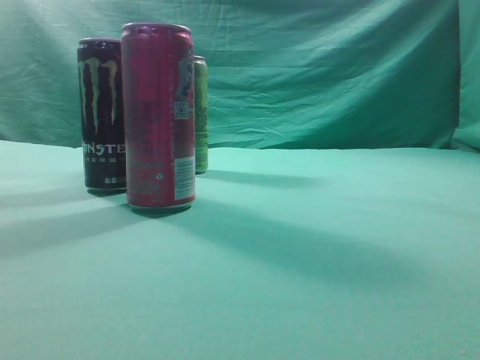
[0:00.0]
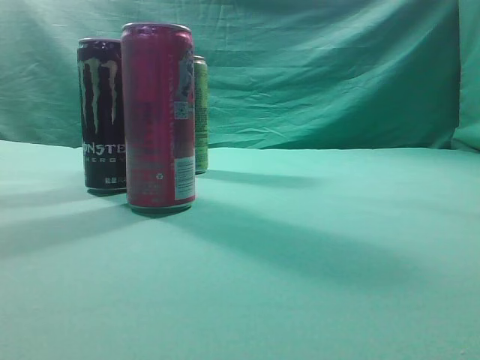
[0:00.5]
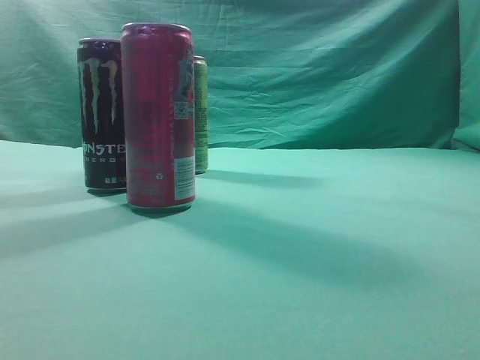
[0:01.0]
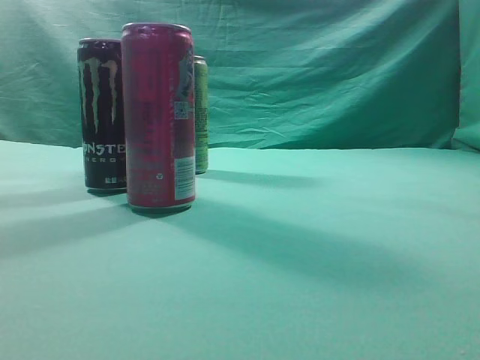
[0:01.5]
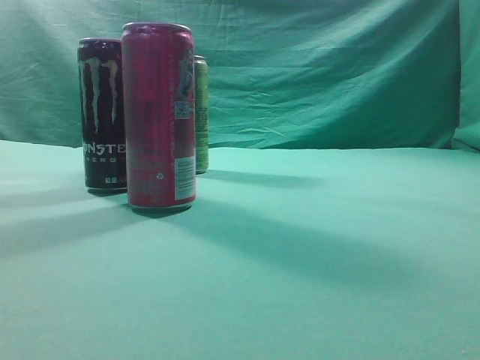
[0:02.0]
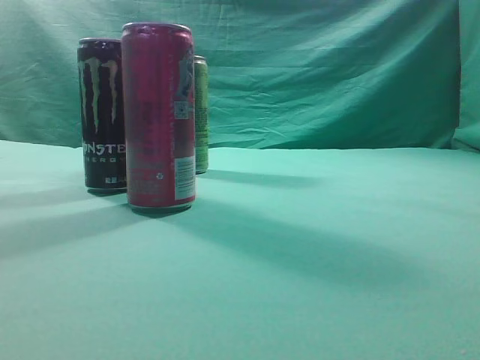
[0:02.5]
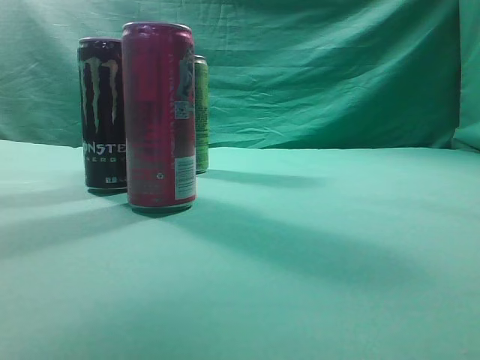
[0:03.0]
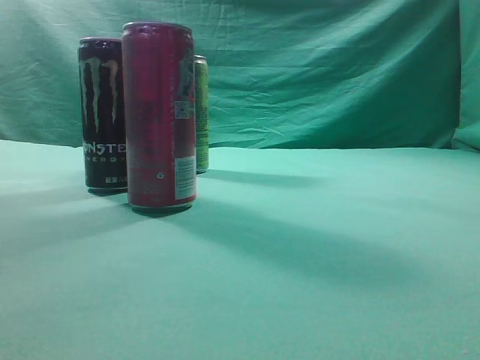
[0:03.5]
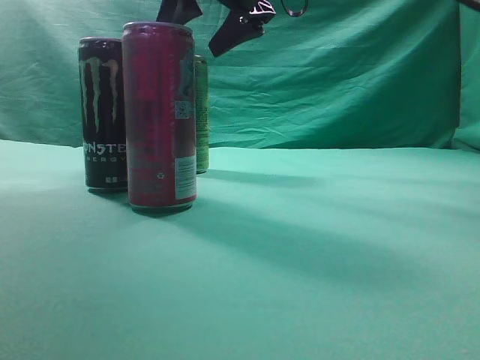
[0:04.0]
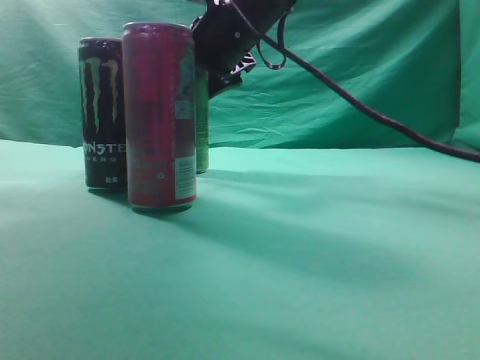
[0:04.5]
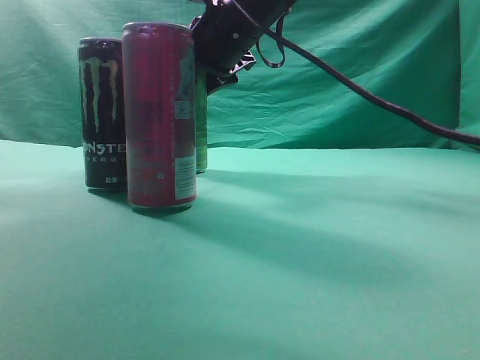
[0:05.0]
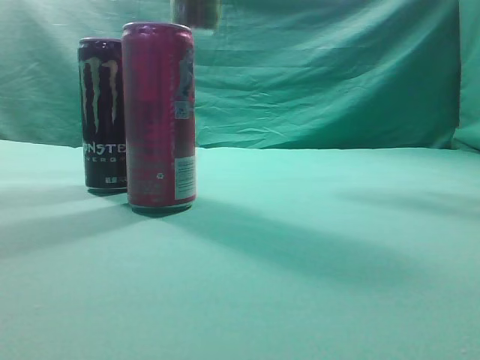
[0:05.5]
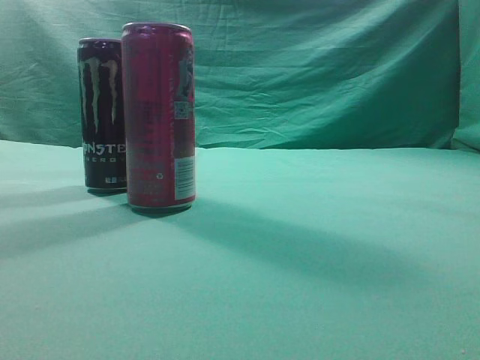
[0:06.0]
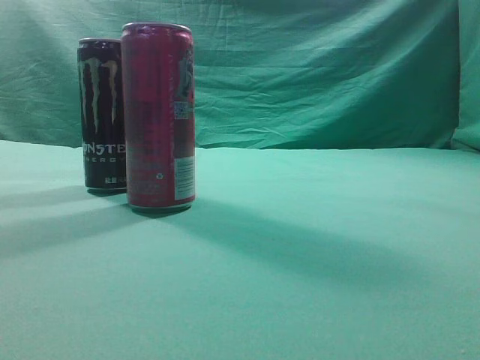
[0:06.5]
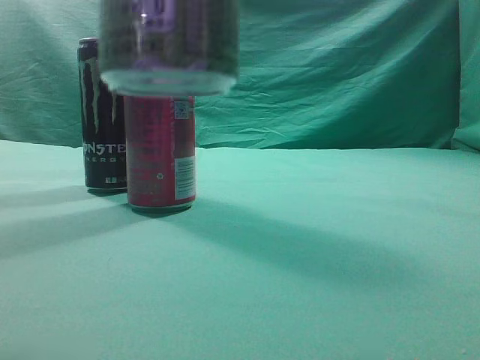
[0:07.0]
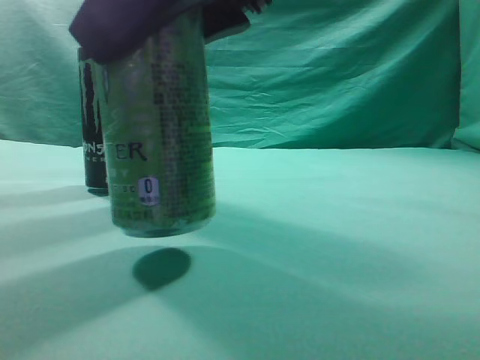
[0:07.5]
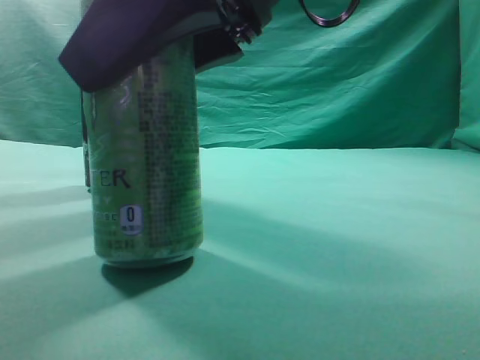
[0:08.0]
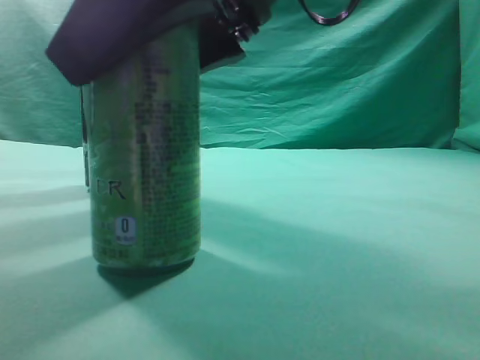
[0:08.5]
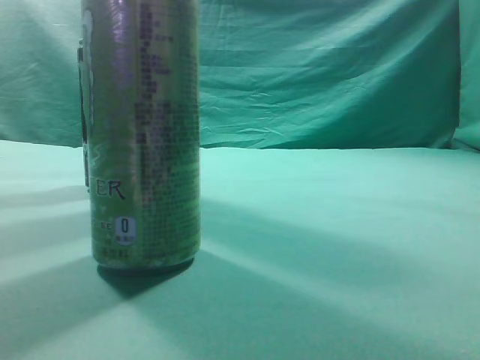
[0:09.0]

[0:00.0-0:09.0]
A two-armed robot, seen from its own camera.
Task of the whole recording: move one drink among three beverages.
Step, 0:00.0 to 0:05.0: Grasp the beverage bottle placed at the back of the desk.
Step, 0:05.5 to 0:09.0: Place the beverage bottle to the front of the table.
0:02.0 to 0:04.5: The right gripper shifts roughly 50 cm forward and to the left, and opens its fingers.
0:04.5 to 0:07.0: The right gripper shifts approximately 25 cm backward.
0:07.0 to 0:09.0: The right gripper moves some 5 cm downward and comes back.
